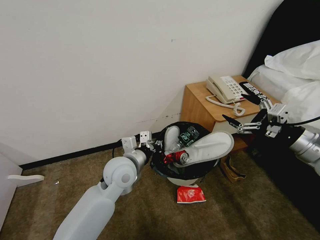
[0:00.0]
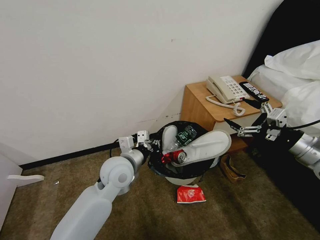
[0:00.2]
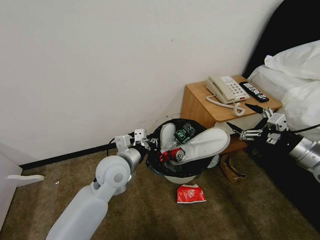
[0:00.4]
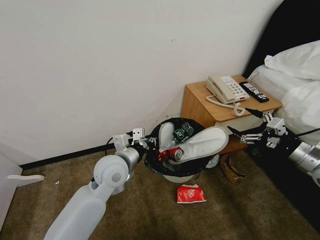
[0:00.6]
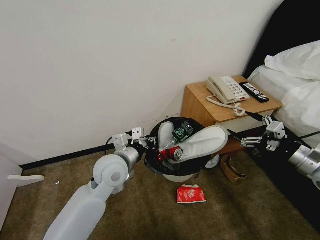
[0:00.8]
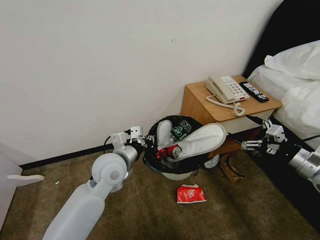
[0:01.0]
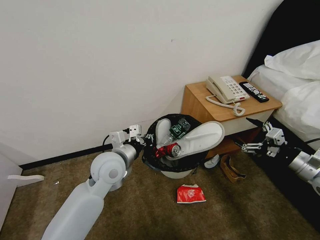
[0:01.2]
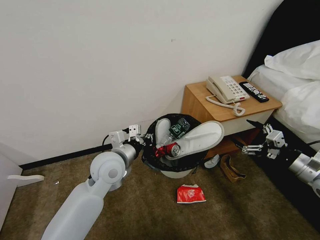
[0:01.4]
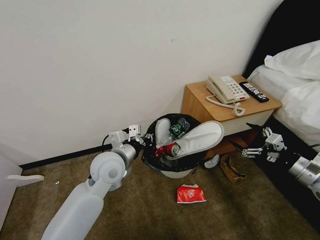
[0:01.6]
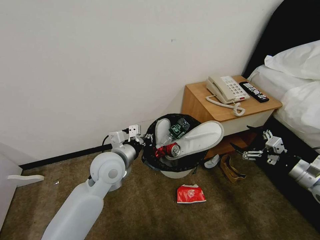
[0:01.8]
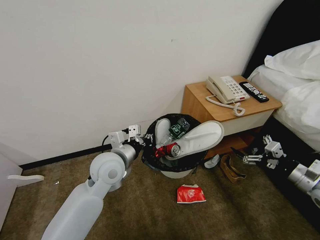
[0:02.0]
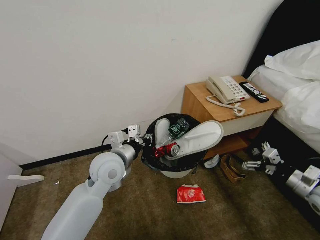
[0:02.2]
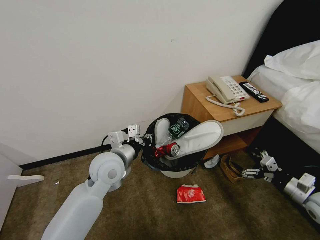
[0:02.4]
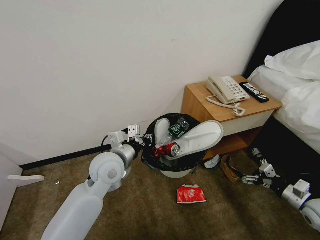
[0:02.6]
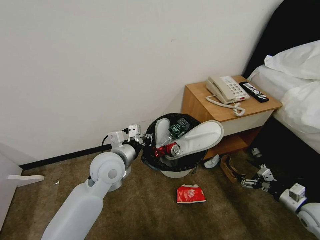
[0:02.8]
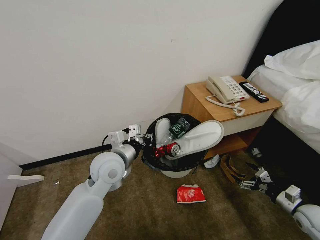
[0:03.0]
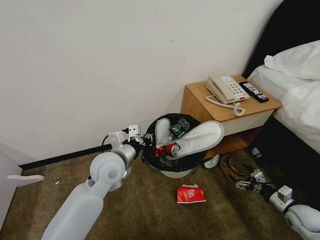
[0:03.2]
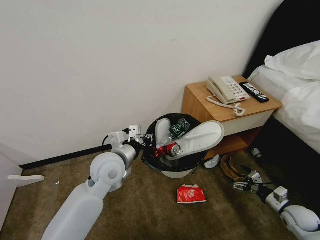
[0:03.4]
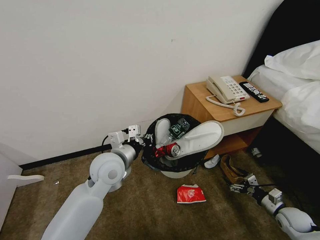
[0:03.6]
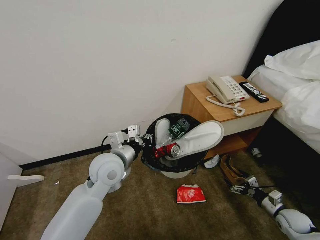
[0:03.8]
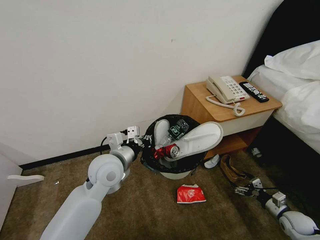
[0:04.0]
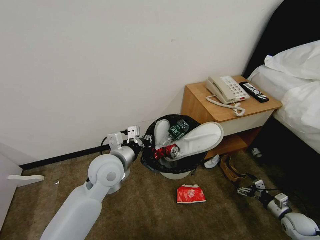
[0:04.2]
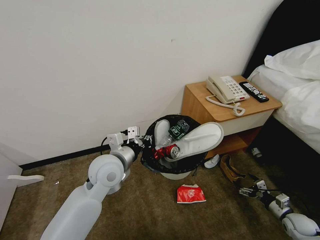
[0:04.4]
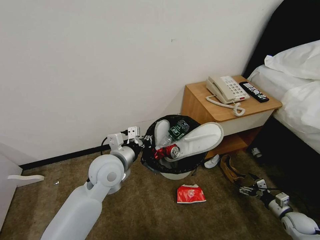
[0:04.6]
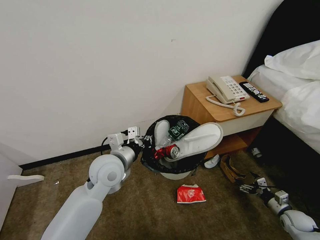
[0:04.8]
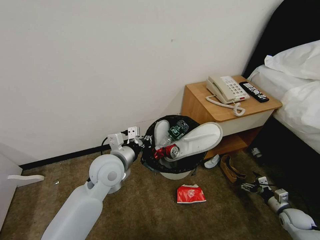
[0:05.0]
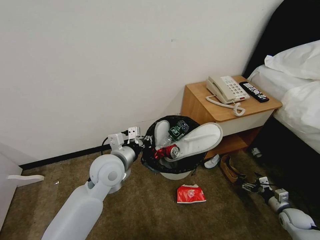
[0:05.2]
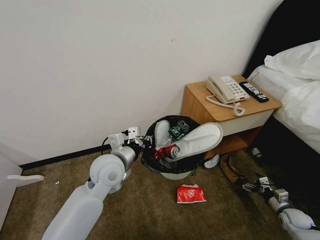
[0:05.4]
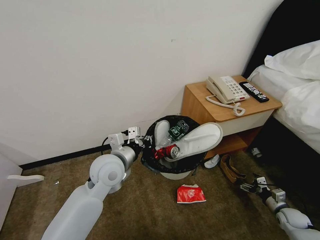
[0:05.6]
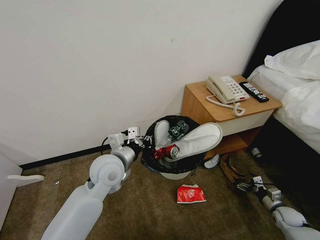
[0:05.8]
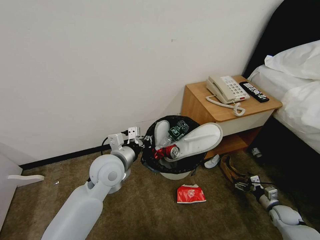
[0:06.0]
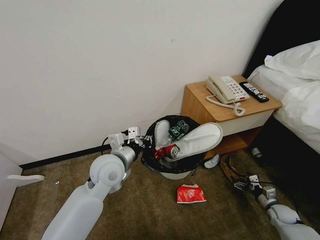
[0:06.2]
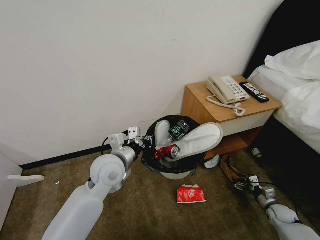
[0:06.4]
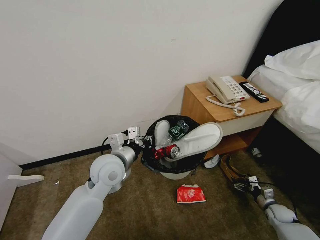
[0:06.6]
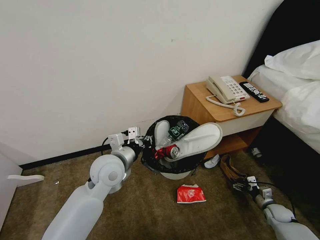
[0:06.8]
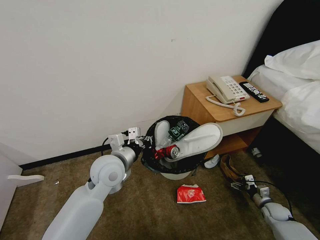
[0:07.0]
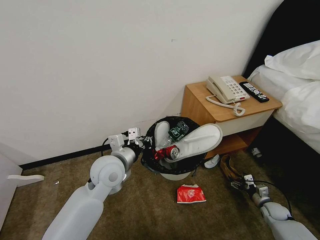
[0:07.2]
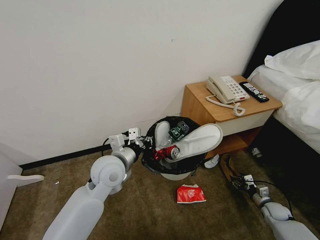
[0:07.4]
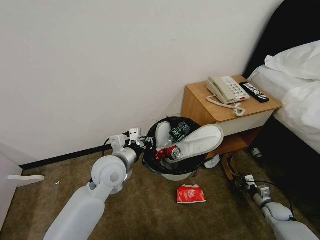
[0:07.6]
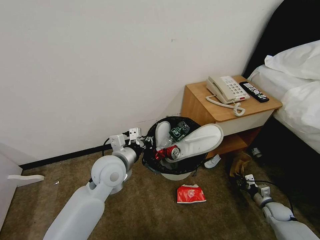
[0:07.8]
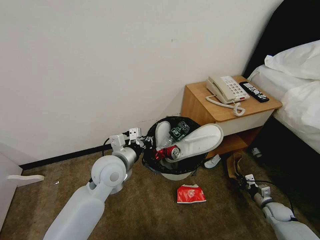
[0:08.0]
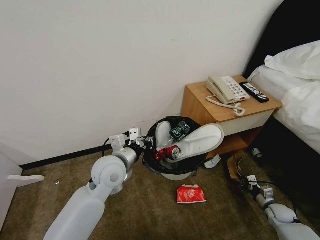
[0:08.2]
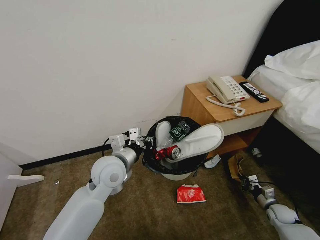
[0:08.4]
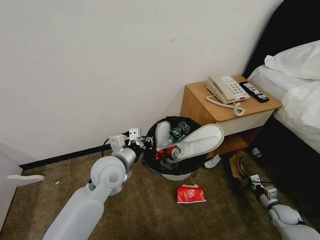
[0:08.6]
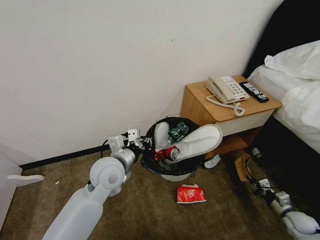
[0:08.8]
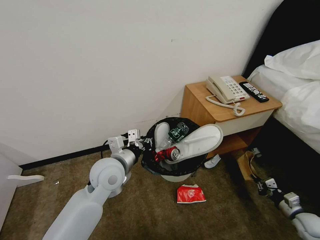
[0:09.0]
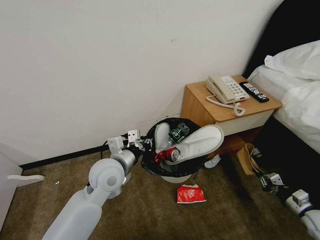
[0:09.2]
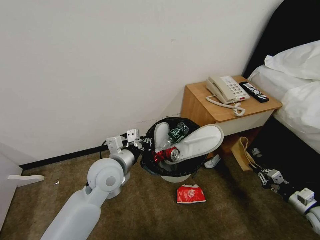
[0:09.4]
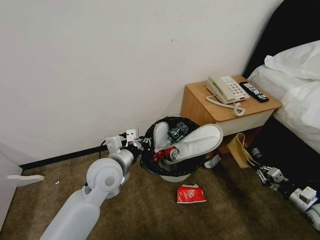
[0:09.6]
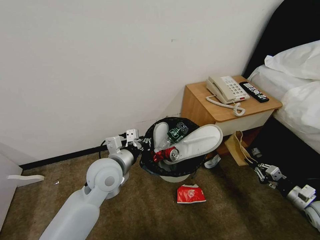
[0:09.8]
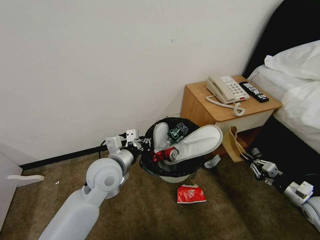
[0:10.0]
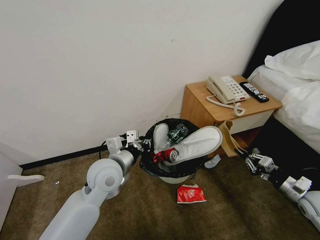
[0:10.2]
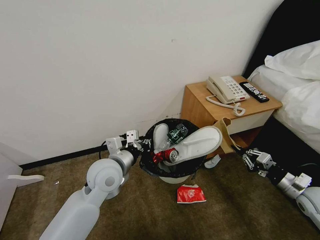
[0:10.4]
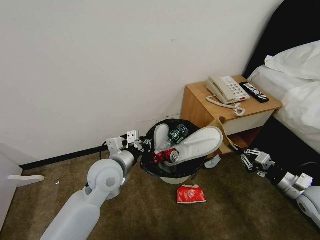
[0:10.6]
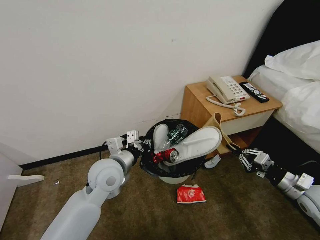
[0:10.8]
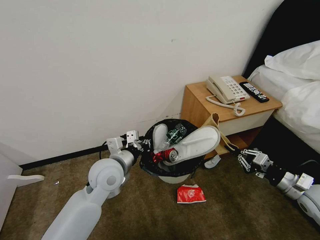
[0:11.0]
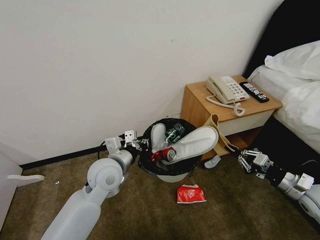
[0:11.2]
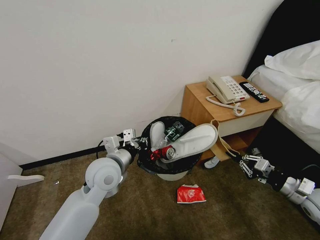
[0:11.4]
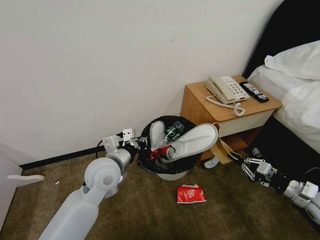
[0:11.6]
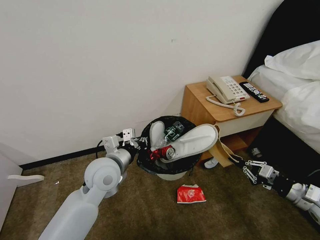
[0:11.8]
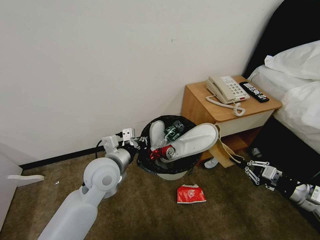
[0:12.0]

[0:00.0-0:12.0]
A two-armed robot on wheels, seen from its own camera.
Task of the whole recording: Pick up the trash bin, then pick up the garbage from the floor and place it into the trash bin.
0:00.0 to 0:01.6: The right gripper travels downward by approximately 10 cm.
0:01.6 to 0:03.0: The right gripper shifts about 15 cm downward.
0:03.0 to 0:04.4: The right gripper is displaced downward by some 10 cm.
0:04.4 to 0:06.0: The grippers move only a little.
0:06.0 to 0:07.6: The right gripper closes up.
0:07.6 to 0:09.0: The right gripper is displaced upward, backward and to the right by approximately 10 cm, and closes up.
0:09.0 to 0:10.4: The right gripper is displaced upward and to the left by some 15 cm.
0:10.4 to 0:12.0: The grippers stay close to where they were, moving slightly.

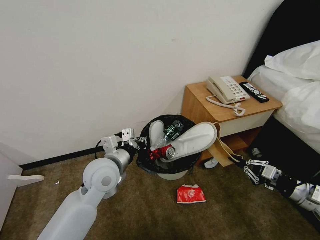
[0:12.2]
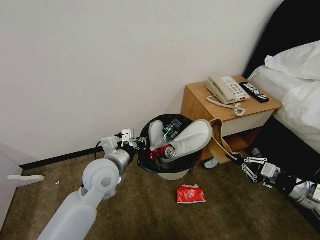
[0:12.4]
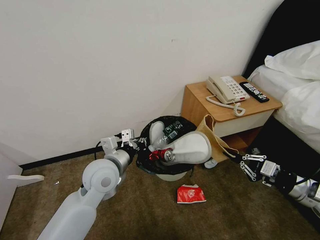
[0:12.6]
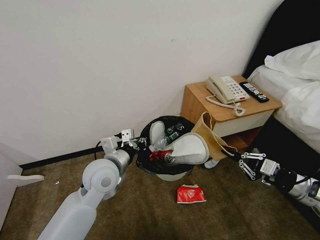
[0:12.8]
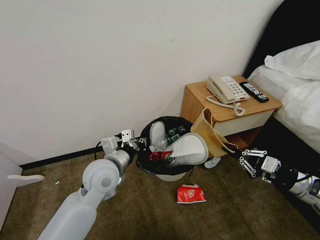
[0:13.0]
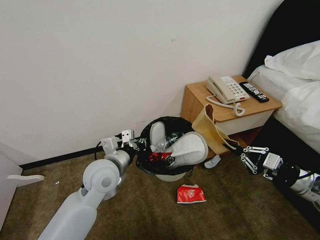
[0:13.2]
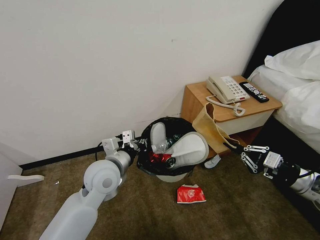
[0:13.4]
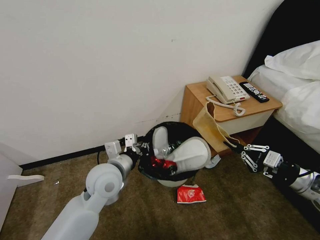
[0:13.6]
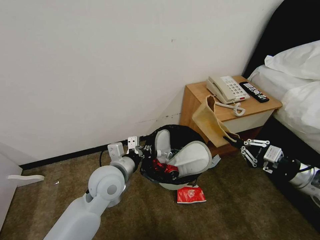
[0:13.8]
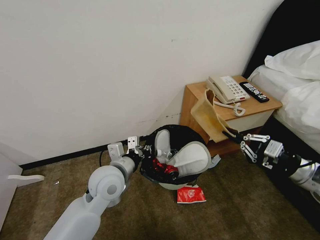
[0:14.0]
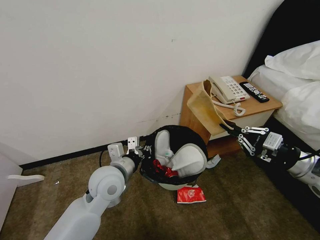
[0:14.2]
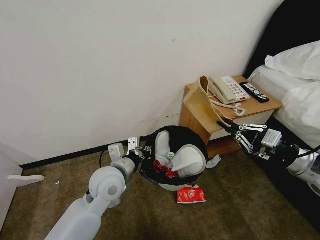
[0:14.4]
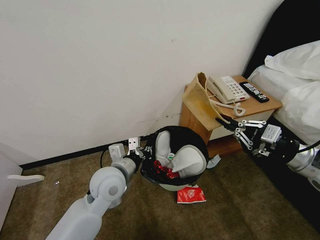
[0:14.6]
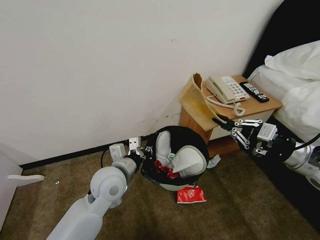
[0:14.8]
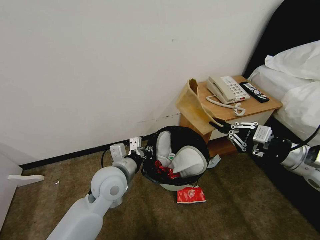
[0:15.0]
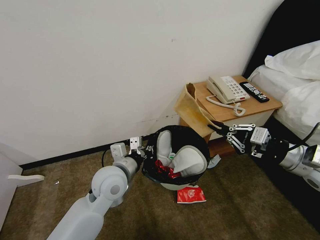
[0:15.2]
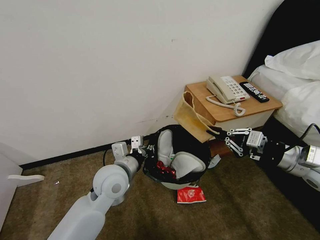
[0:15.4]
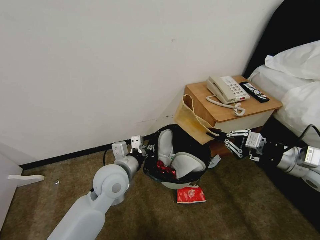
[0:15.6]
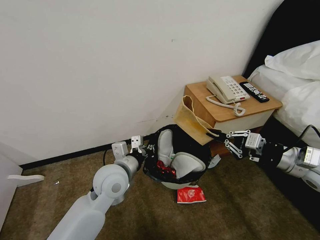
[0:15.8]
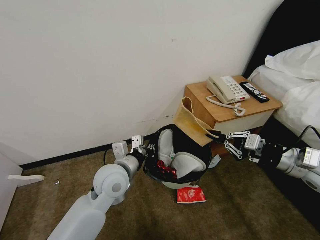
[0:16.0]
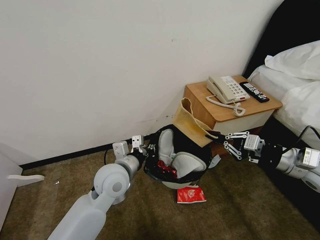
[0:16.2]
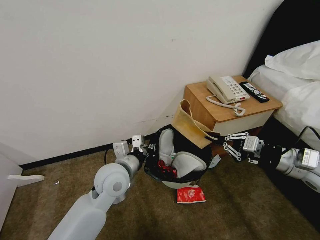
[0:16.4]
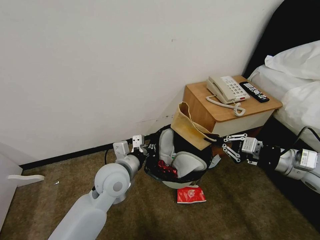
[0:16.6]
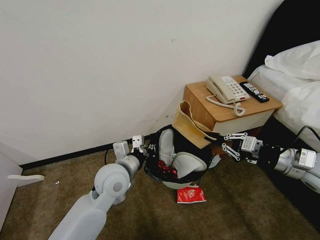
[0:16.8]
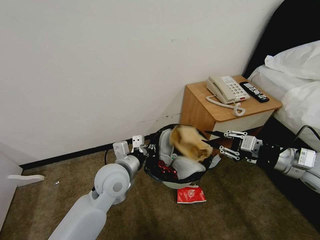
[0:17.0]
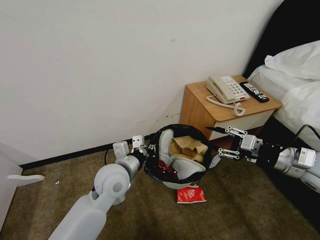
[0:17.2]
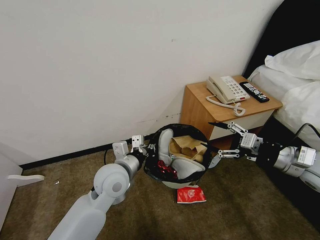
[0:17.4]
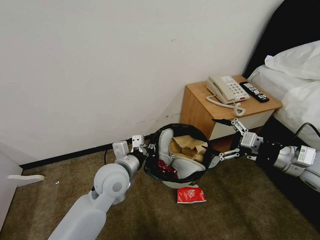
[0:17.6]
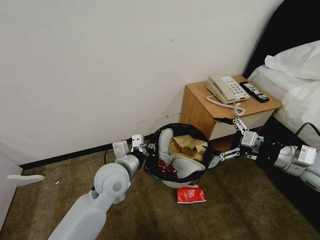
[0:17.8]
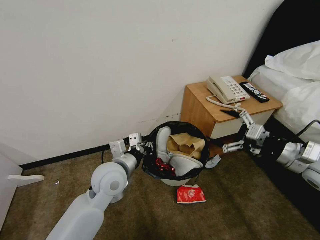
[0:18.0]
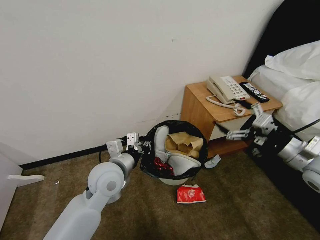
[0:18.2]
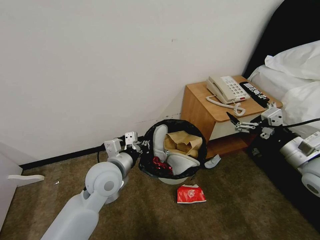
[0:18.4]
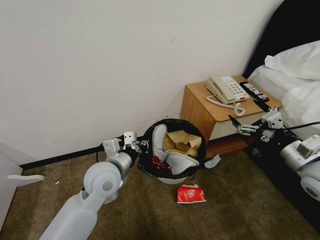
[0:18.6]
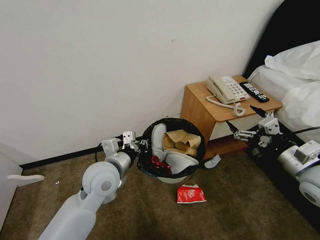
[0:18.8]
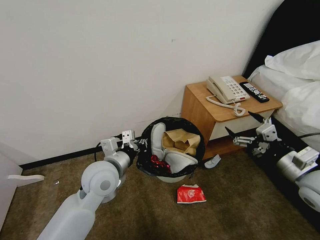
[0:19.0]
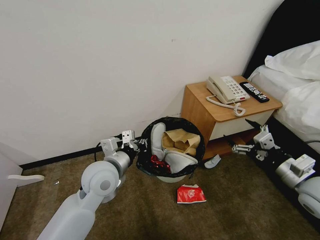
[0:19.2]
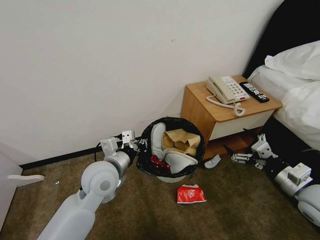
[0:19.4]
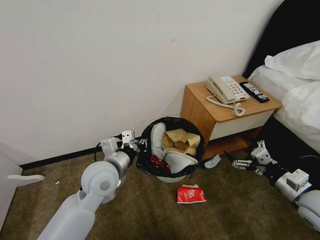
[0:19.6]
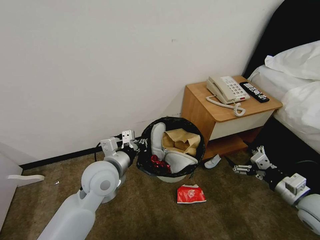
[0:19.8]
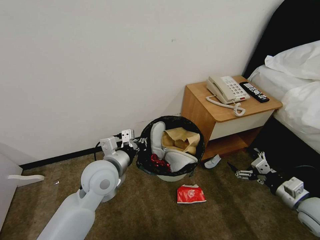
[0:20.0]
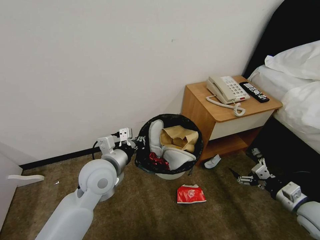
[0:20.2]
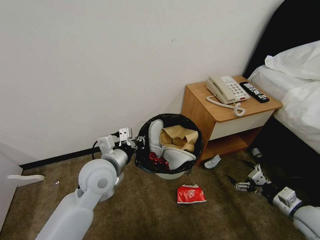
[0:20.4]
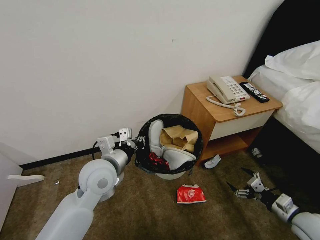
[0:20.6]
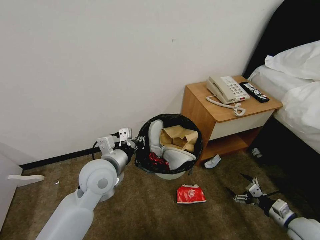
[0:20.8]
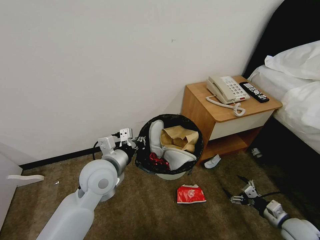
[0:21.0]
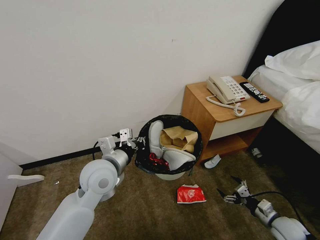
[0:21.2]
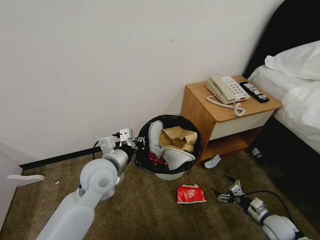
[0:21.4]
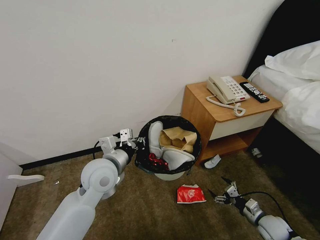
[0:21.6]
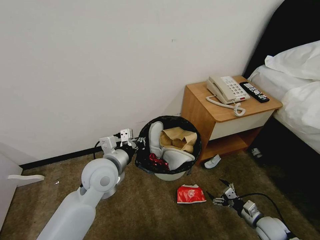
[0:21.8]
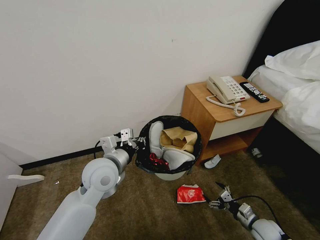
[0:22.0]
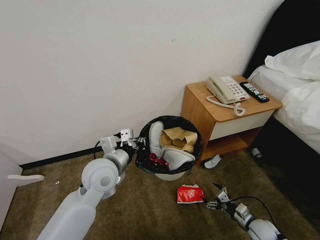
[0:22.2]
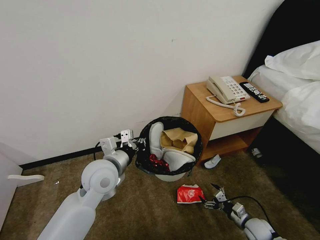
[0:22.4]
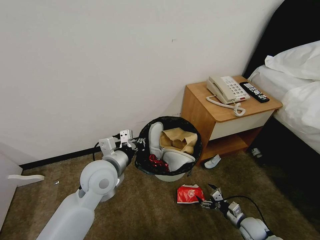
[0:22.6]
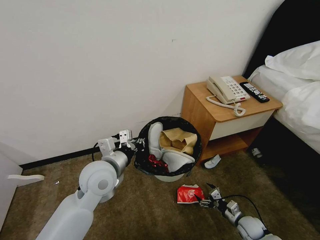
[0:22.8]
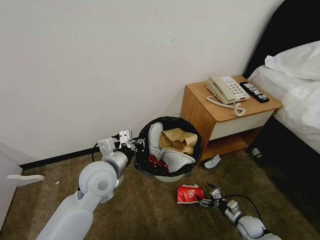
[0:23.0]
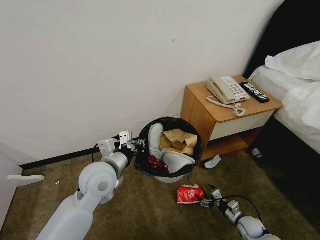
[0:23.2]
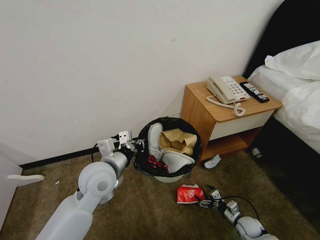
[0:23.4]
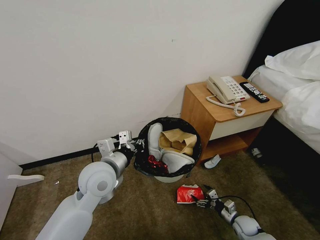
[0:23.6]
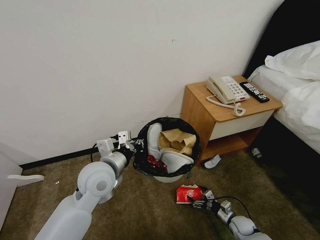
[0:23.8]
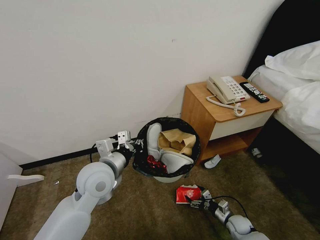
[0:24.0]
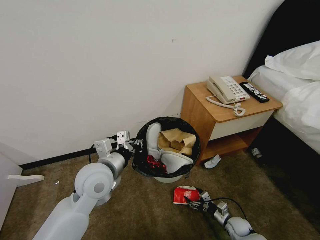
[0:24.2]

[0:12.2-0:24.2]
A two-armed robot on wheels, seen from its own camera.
Task of the whole recording: Pick up the trash bin, then pick up the garbage from the floor and place it into the trash bin.
0:12.2 to 0:13.8: The right gripper goes about 5 cm upward.
0:13.8 to 0:15.2: The right gripper travels upward by approximately 5 cm.
0:15.2 to 0:16.6: The grippers make only small movements.
0:16.6 to 0:18.2: The right gripper opens its fingers.
0:18.2 to 0:19.8: The right gripper moves downward and backward, some 15 cm.
0:19.8 to 0:21.2: The right gripper moves downward, approximately 20 cm.
0:21.2 to 0:22.6: The right gripper moves downward and to the left, approximately 10 cm.
0:22.6 to 0:24.2: The right gripper heads downward, covering approximately 5 cm.
